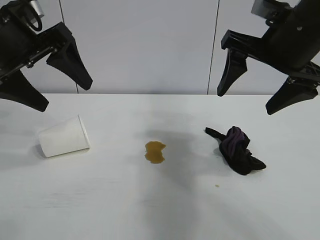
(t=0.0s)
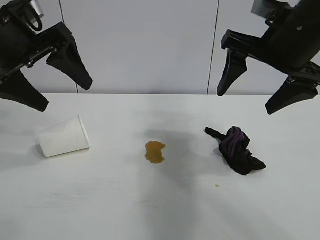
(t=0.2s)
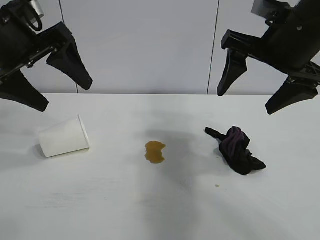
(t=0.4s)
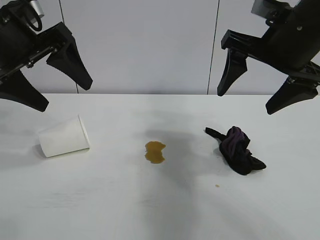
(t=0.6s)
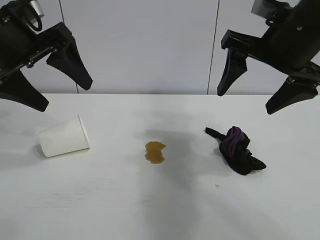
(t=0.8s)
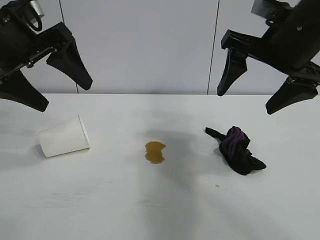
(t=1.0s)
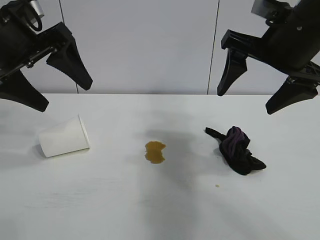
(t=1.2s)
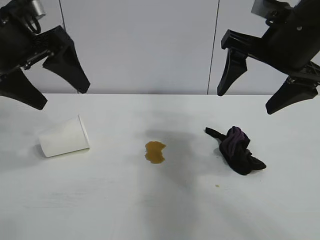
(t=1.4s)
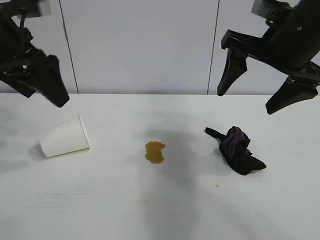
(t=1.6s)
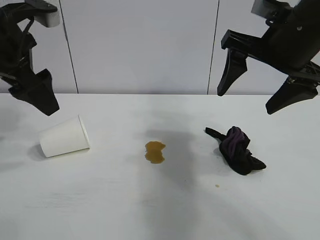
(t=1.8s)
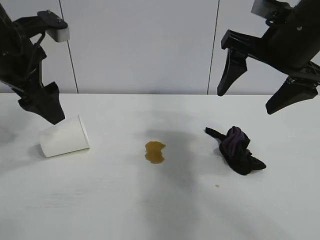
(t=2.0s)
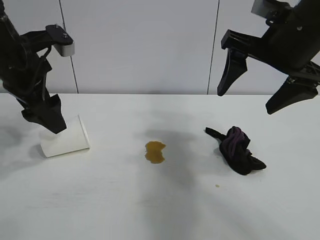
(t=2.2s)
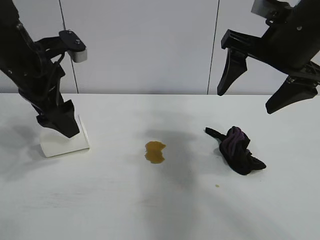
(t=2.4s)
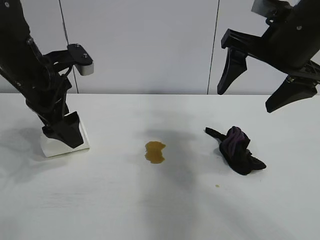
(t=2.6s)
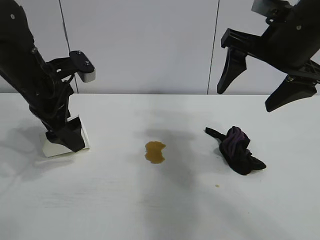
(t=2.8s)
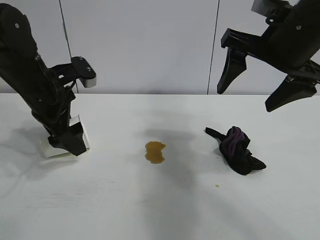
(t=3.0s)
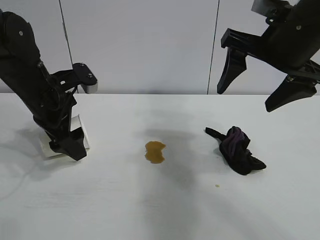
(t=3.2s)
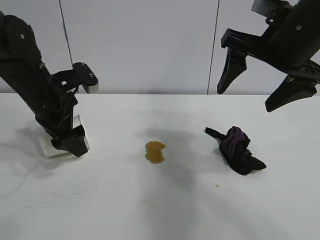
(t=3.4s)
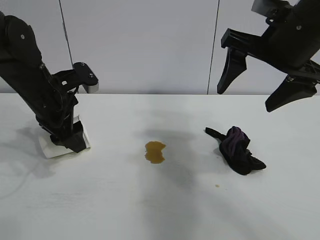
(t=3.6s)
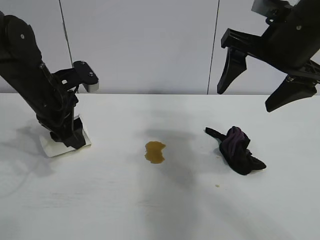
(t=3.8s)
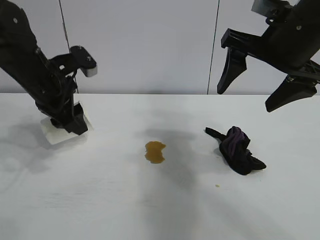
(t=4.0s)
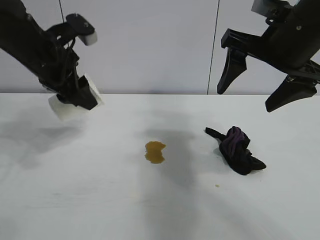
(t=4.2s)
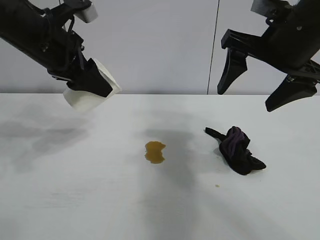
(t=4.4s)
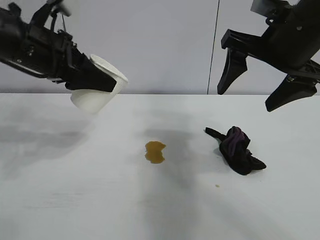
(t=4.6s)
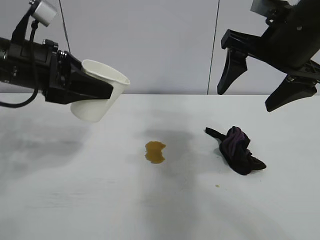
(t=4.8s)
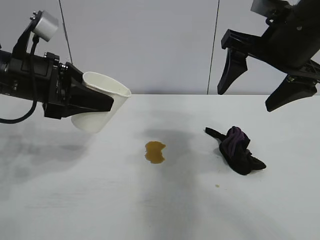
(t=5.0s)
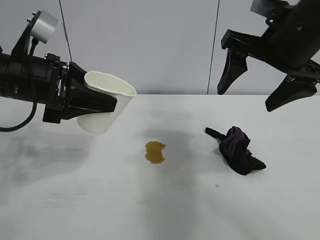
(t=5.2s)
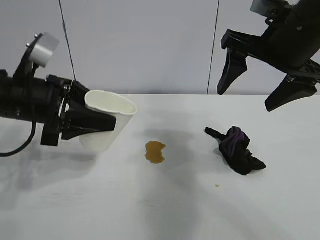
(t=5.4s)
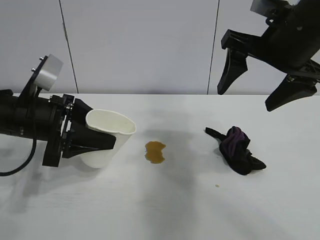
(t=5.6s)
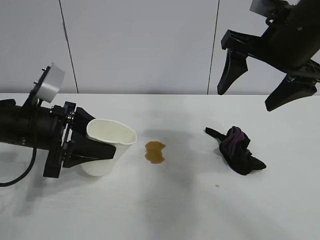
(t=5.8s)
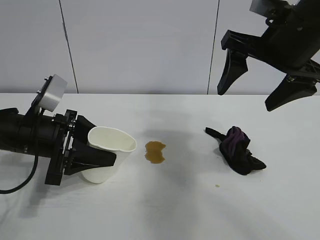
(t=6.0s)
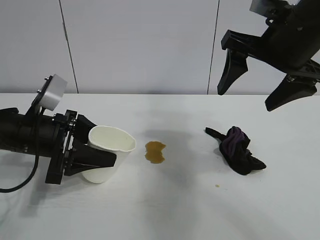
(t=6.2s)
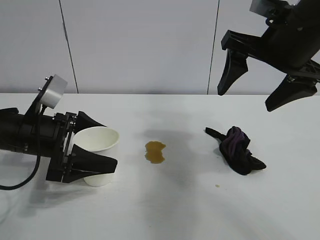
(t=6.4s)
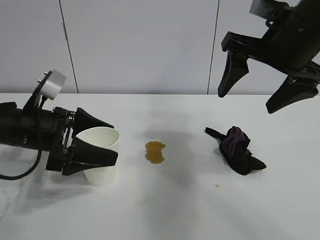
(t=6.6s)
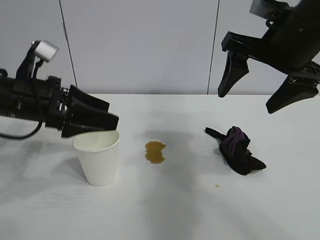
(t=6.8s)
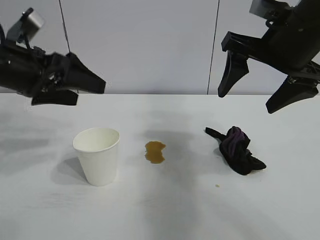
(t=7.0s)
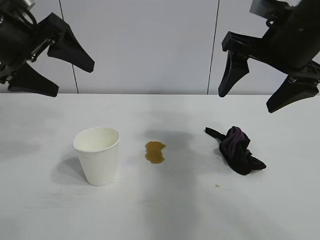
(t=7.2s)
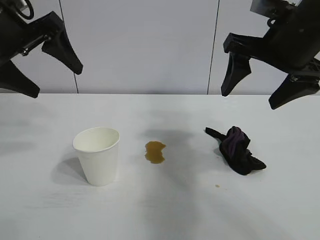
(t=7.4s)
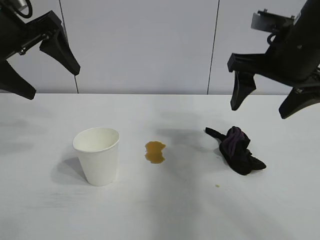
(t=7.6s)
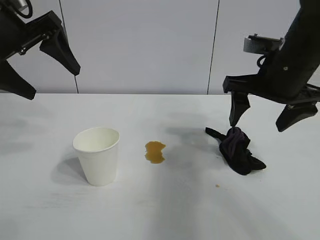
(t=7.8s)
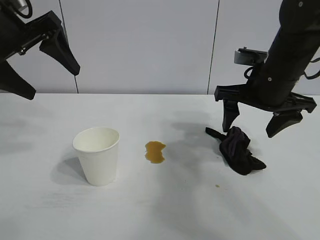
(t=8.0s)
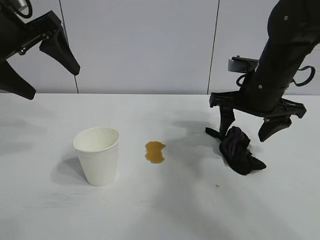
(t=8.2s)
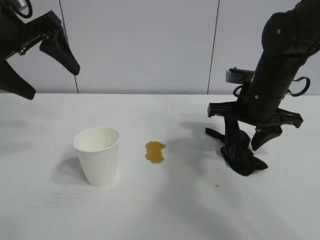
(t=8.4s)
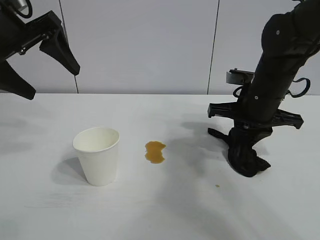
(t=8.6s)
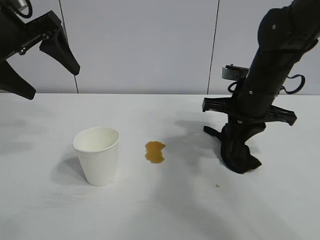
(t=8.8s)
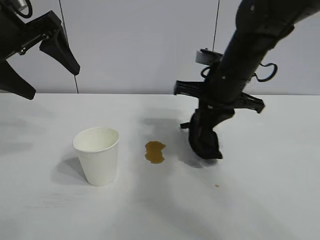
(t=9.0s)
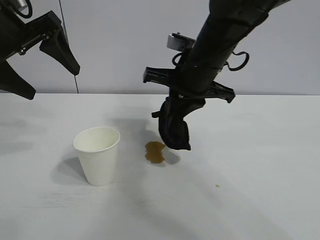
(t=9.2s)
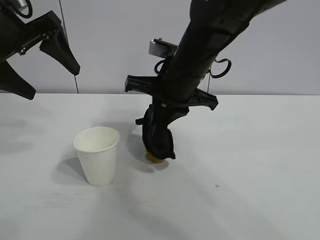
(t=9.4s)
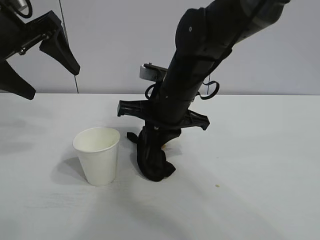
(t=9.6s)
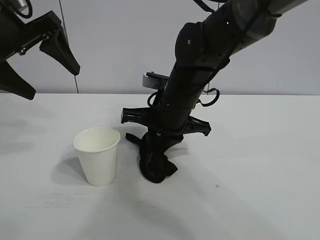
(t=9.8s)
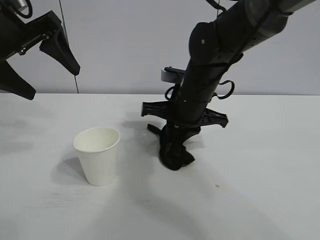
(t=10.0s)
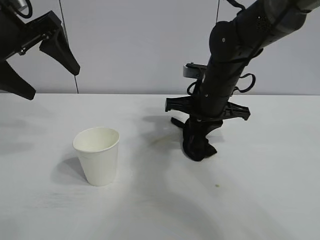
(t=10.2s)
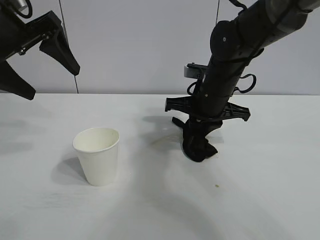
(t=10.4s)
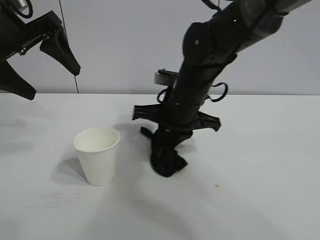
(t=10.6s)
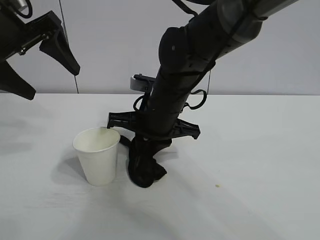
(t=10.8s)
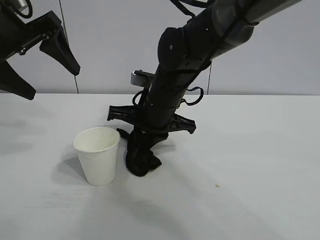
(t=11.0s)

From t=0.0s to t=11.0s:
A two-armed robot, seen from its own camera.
Task of the whole recording: the left gripper pick up the fallen cup and place it upright, the right gripper grasp the black rag and wipe the stain on the table, the right gripper put the black rag back in its original position.
Step, from t=1.4s to t=3.6s: Grasp the paper cup with left gripper.
Step, from t=4.0s to t=6.6s: Stand the paper cup upright with left gripper.
Step, from t=6.8s to t=8.6s: Grasp the rag with right gripper.
